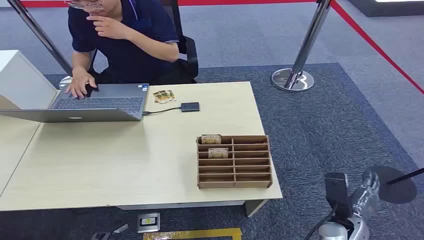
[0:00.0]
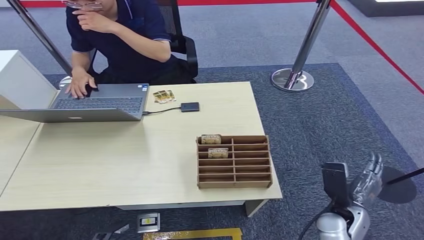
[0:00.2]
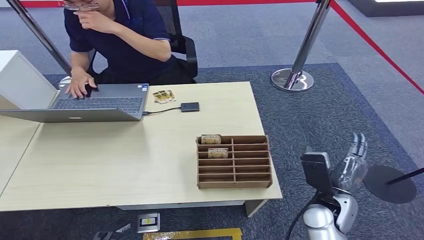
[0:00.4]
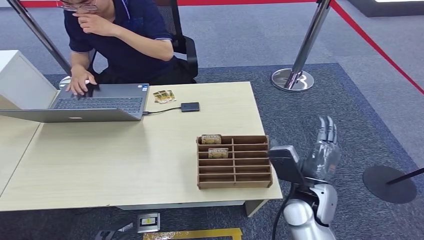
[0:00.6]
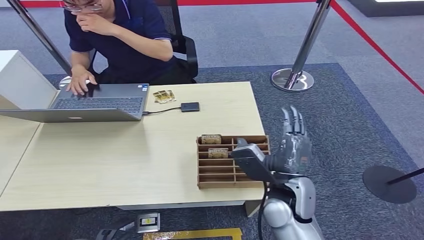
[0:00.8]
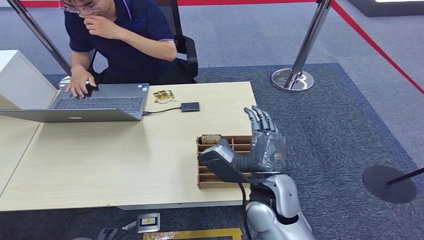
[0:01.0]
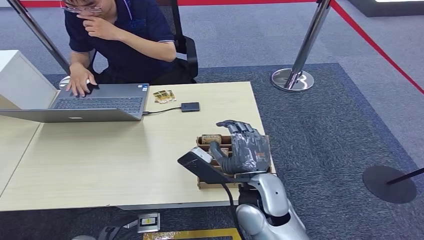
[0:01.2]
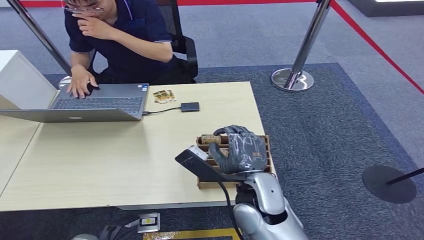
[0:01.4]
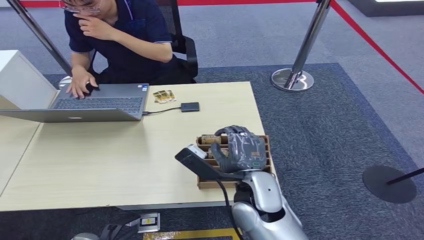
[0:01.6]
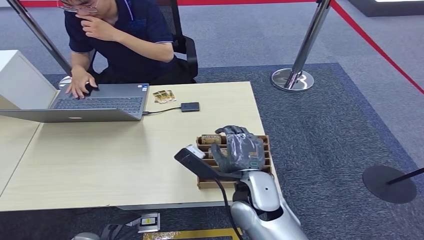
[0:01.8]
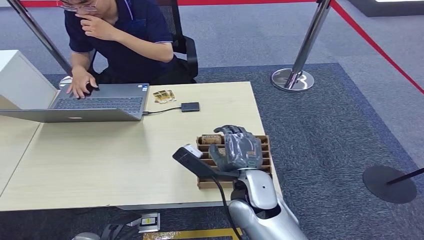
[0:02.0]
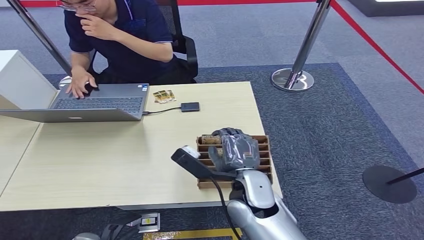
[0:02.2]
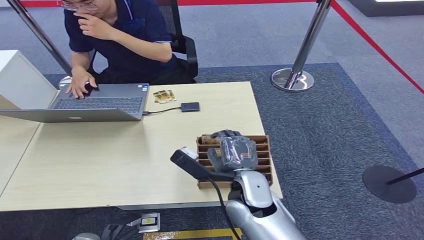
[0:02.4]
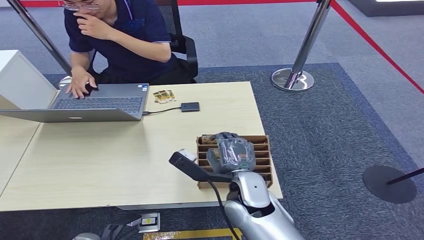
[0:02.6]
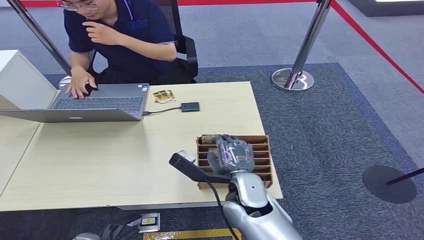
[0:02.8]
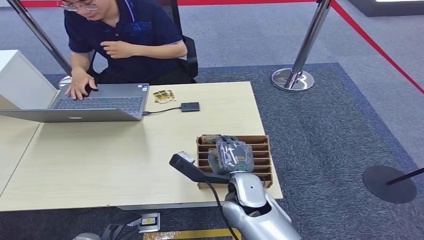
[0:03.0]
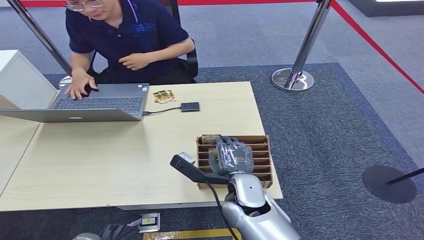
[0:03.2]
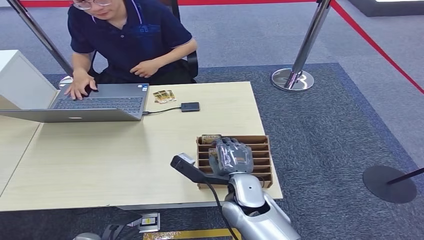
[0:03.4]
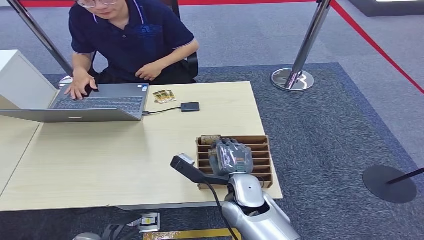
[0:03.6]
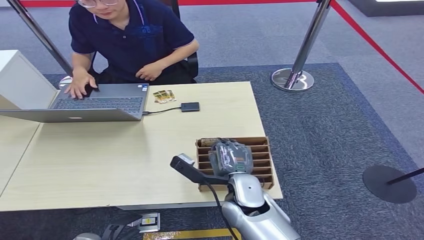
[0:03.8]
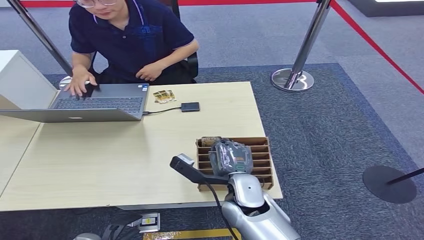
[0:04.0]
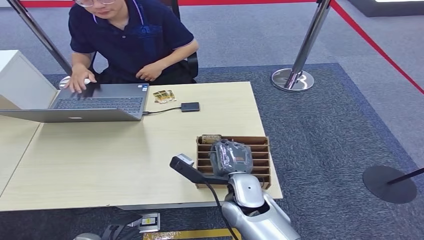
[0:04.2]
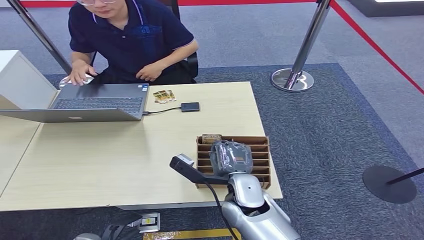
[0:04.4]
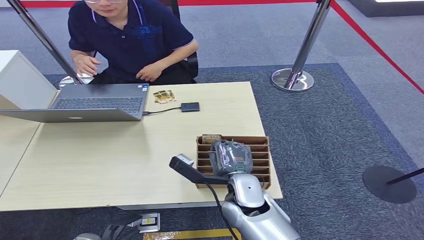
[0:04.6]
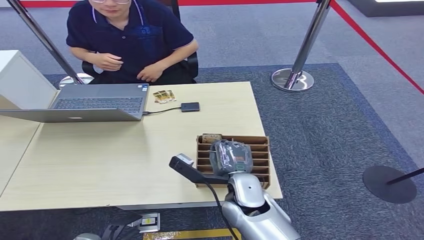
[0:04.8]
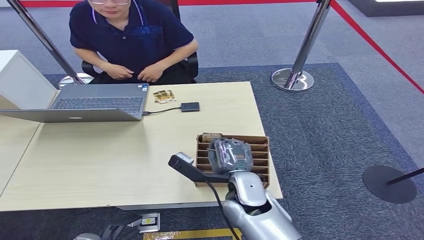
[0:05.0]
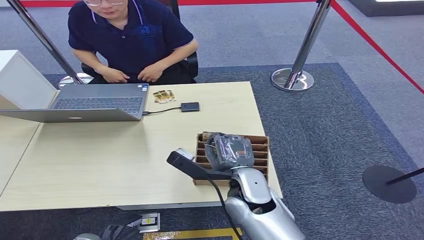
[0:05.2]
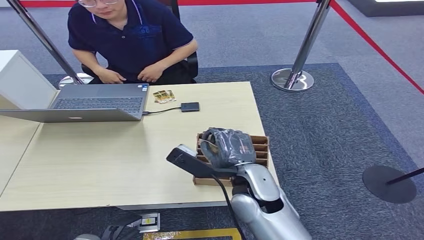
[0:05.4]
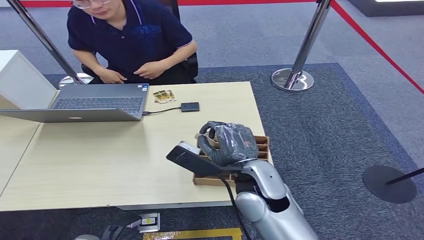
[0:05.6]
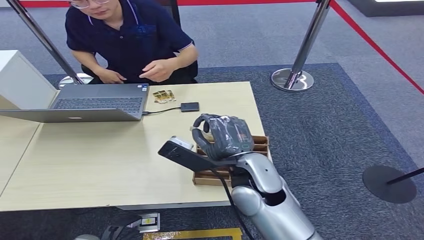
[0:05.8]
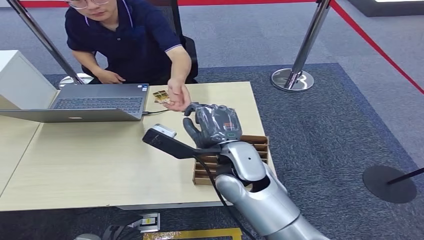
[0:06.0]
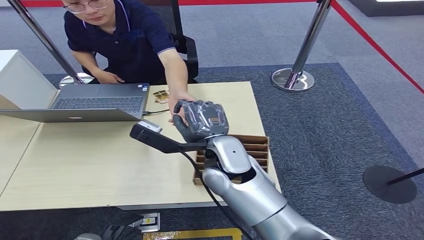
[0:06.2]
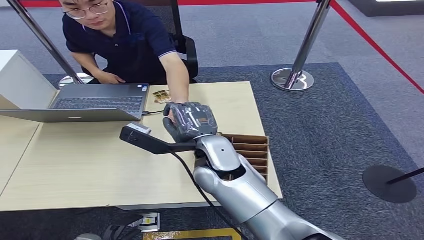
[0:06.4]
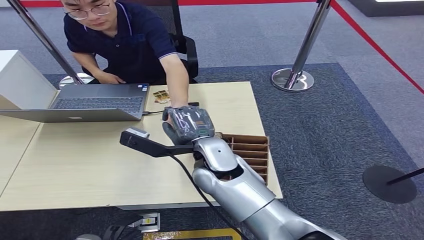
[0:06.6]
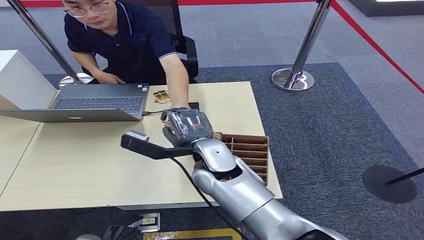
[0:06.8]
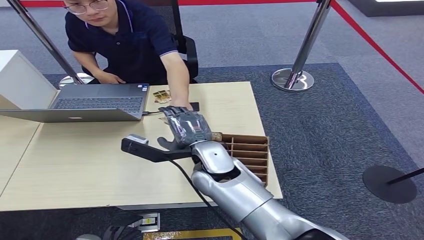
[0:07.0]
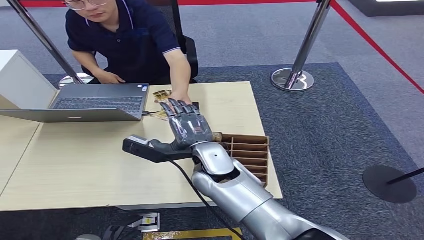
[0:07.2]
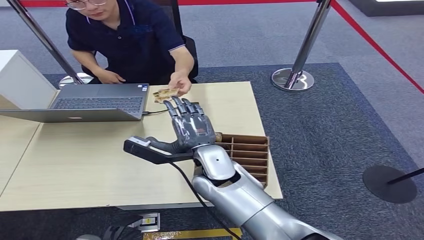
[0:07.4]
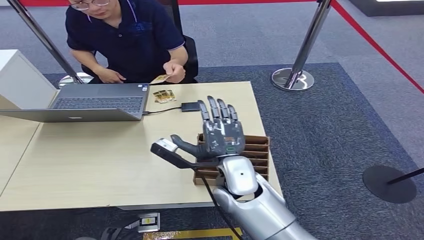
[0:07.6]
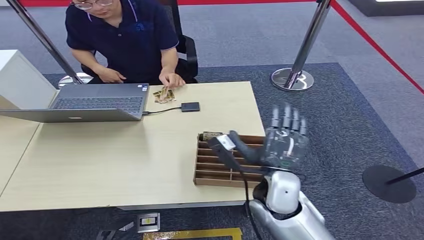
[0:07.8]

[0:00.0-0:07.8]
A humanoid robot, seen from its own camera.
Step, 0:00.0 to 0:05.2: Pick up the room card from the card holder.
Step, 0:05.4 to 0:07.6: Hand the room card to the target.
0:01.6 to 0:03.2: The right hand shifts by roughly 5 cm.
0:03.2 to 0:04.6: Both hands stay about where they are.
0:04.6 to 0:06.2: The right hand travels upward and forward by about 15 cm.
0:06.2 to 0:07.8: The right hand heads to the right, downward and backward, covering some 10 cm.

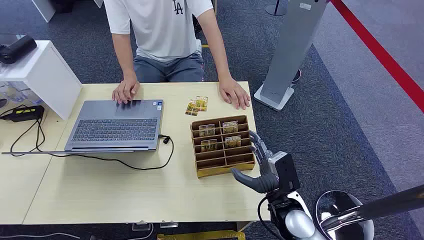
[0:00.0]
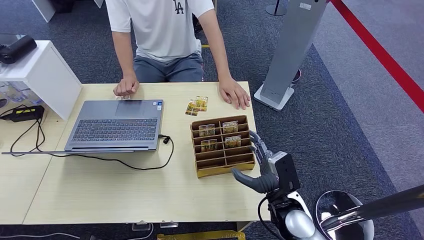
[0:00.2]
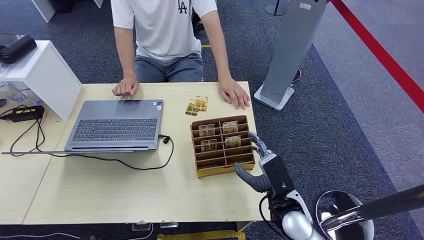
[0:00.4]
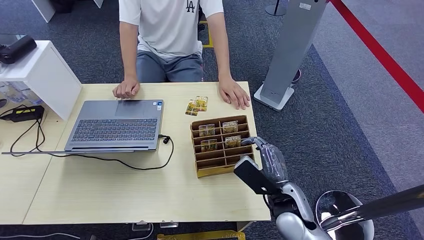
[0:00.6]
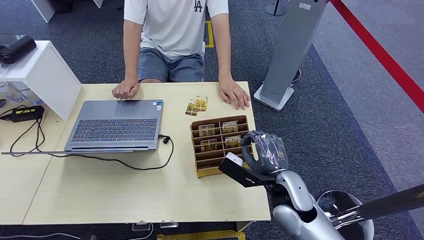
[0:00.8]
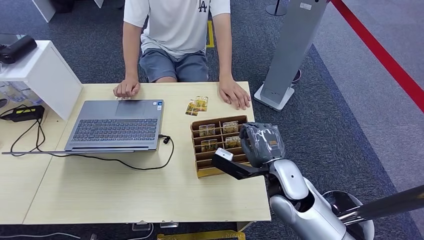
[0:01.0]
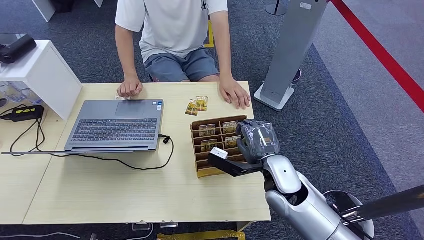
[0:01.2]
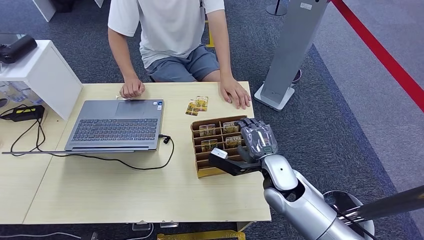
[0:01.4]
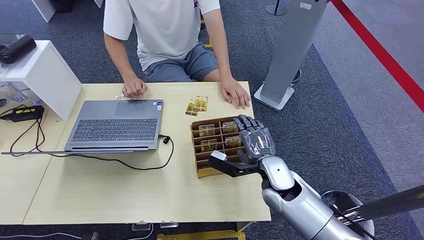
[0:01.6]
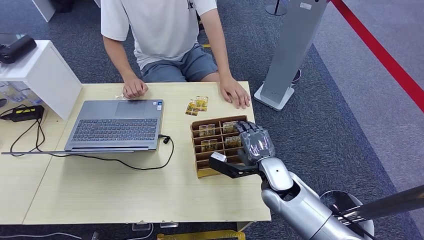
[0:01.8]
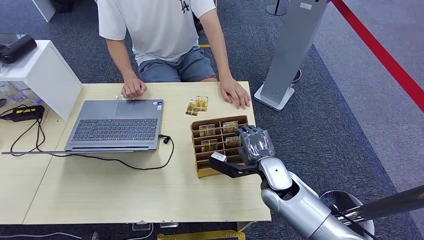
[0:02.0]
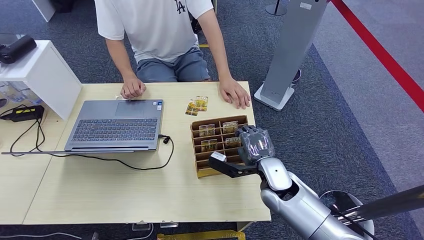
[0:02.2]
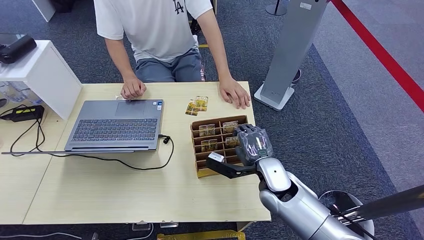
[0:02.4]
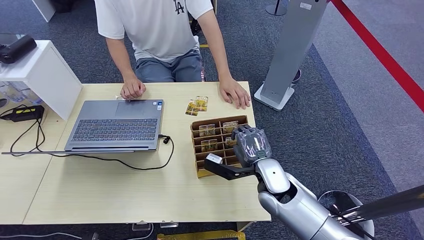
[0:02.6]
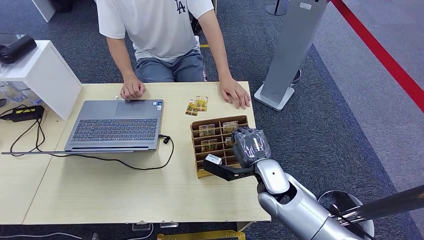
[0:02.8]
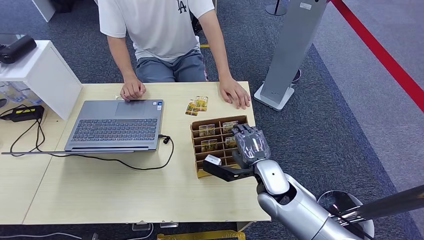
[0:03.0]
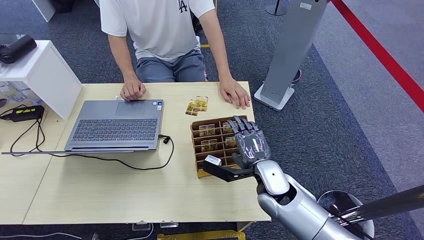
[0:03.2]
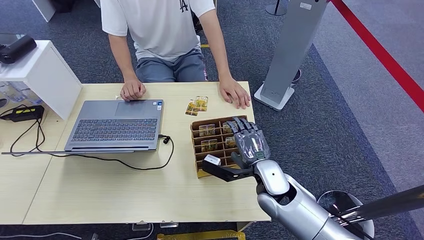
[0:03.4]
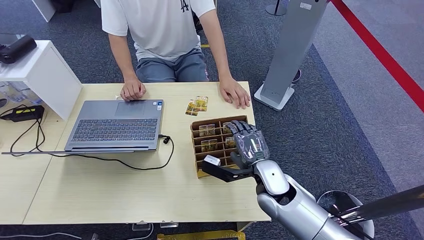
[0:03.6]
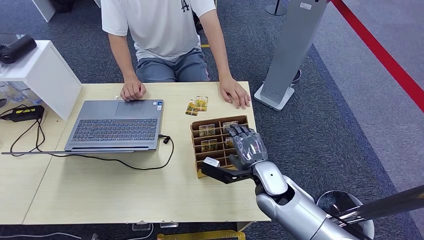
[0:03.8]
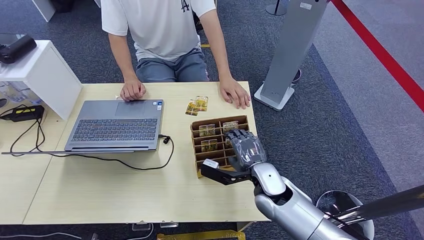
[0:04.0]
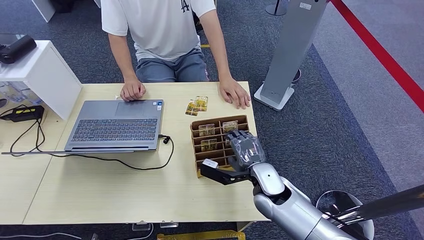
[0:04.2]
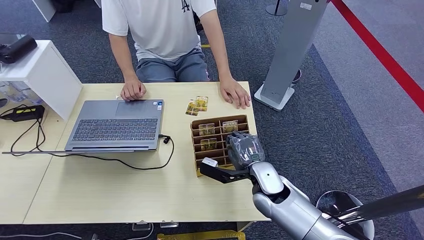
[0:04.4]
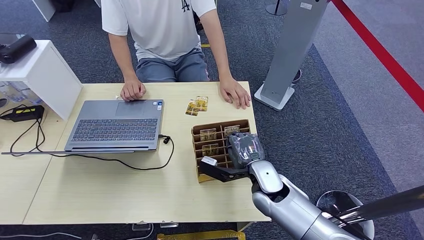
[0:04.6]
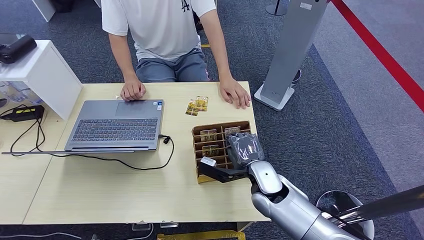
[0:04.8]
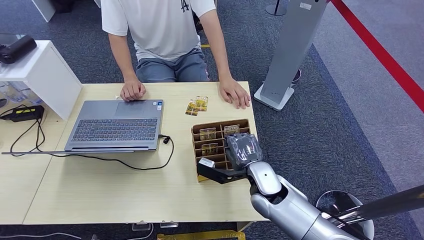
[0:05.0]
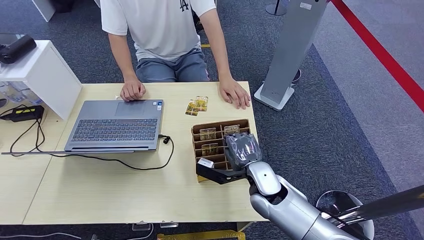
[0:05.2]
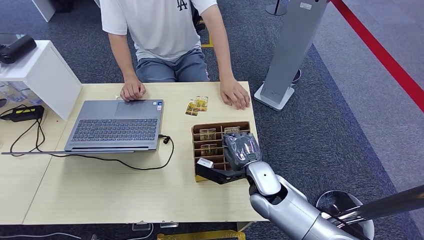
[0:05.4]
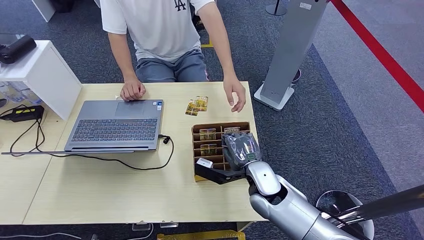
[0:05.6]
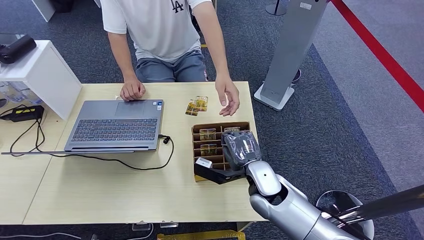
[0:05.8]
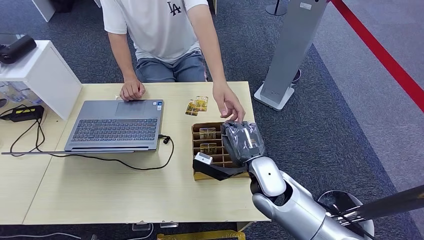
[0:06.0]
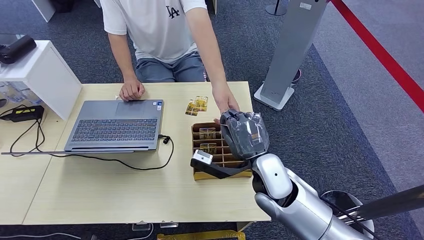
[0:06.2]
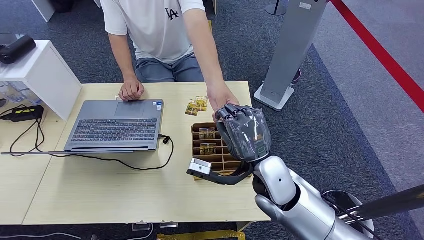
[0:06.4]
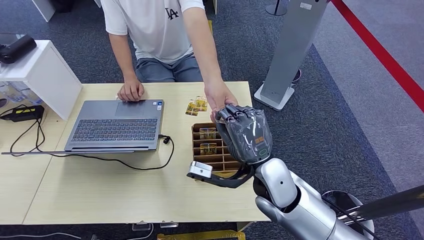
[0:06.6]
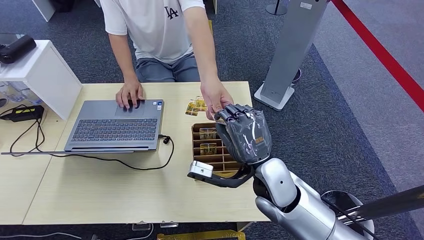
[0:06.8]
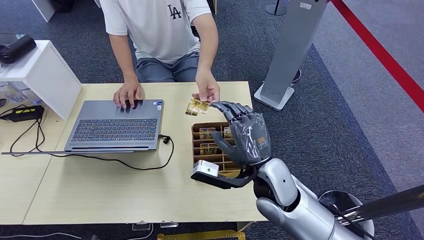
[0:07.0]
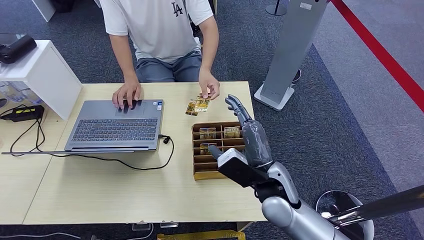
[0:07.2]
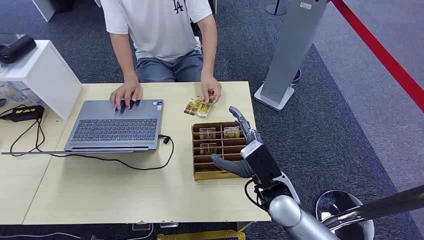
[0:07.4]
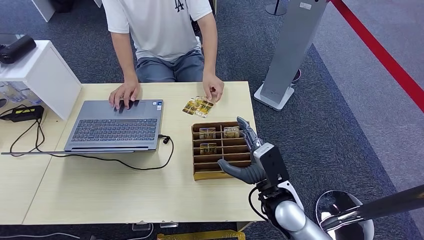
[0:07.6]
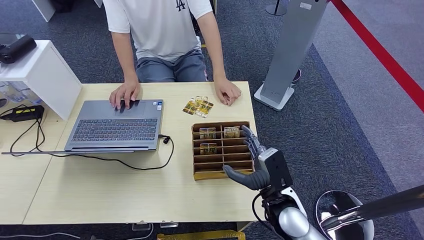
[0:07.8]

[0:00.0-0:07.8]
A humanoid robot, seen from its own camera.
Step, 0:00.0 to 0:05.8: Pick up the room card from the card holder.
Step, 0:06.0 to 0:07.8: Hand the room card to the target.
0:01.6 to 0:04.6: The hands stay close to where they were, moving slightly.
0:04.6 to 0:06.2: The right hand moves upward, approximately 10 cm.
0:06.2 to 0:07.8: The right hand moves downward, approximately 5 cm.

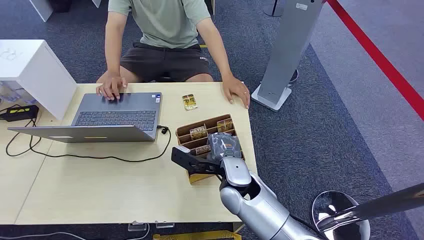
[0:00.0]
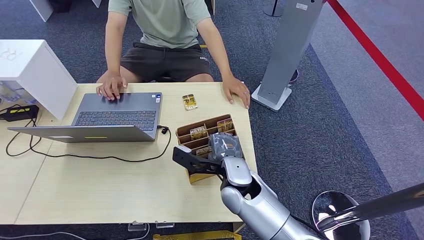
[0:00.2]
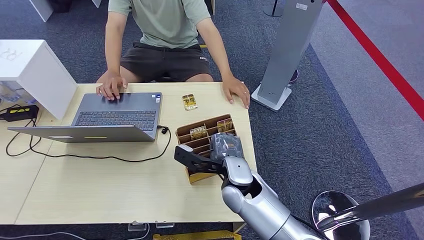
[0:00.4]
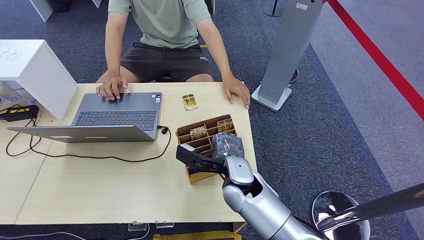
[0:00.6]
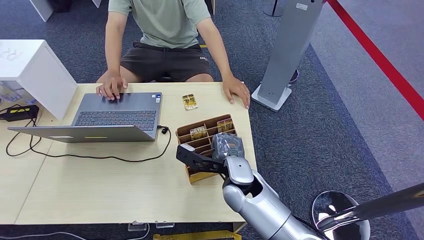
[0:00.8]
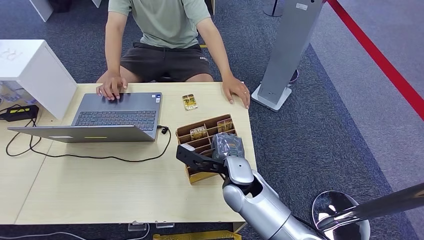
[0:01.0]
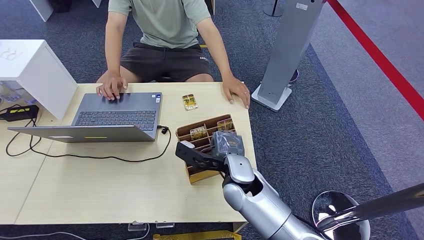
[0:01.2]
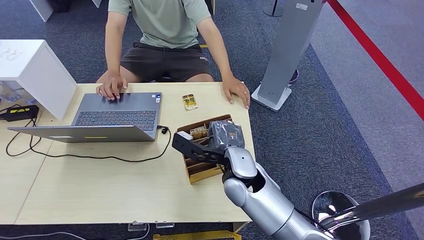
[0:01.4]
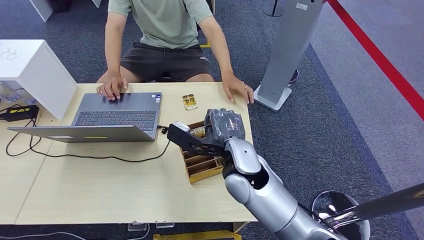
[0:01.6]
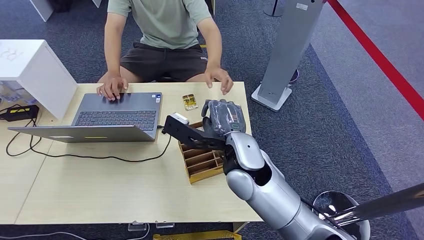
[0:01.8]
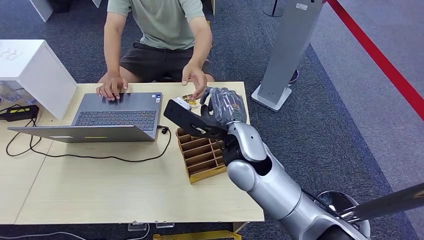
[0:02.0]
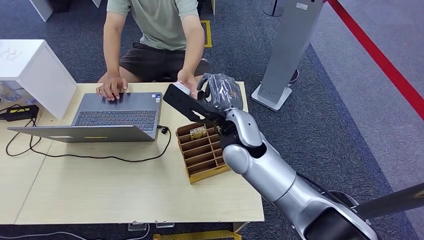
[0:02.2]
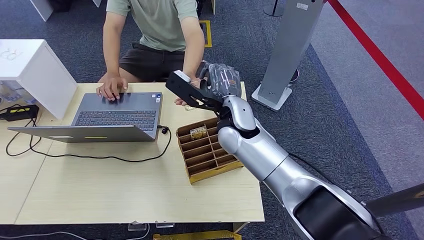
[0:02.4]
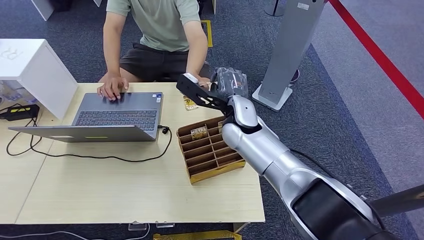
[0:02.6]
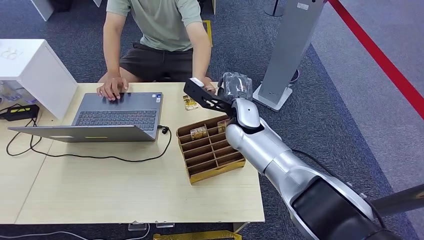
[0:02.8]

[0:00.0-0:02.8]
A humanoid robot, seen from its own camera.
Step, 0:00.0 to 0:01.8: Pick up the room card from the card holder.
0:01.4 to 0:02.8: The right hand moves forward, about 10 cm.
